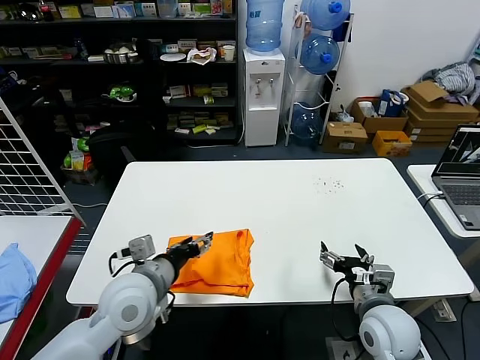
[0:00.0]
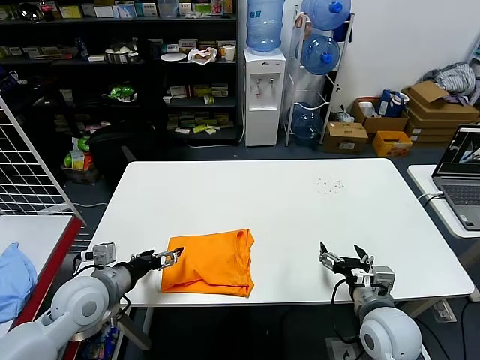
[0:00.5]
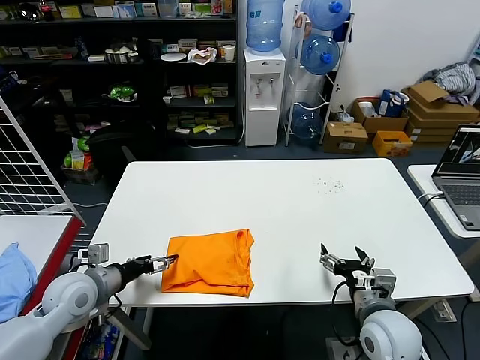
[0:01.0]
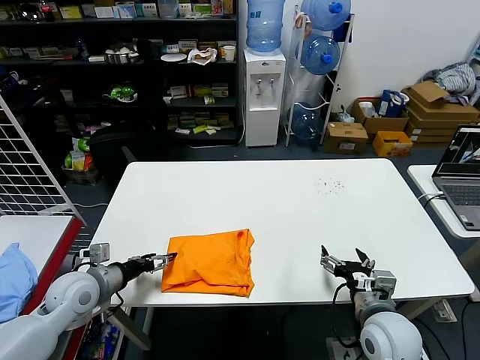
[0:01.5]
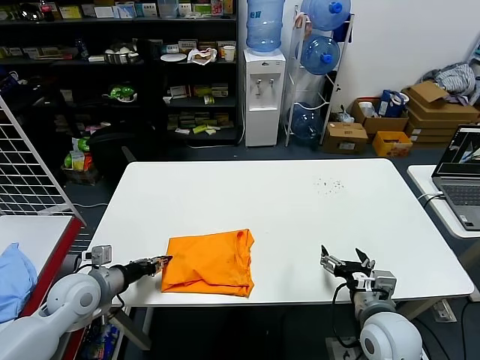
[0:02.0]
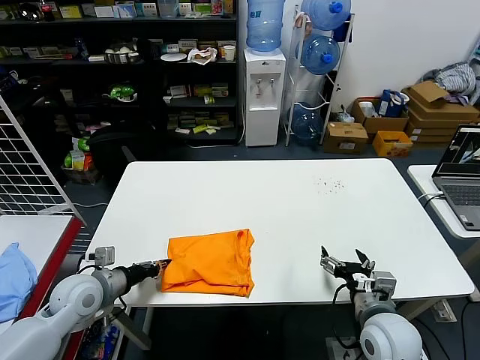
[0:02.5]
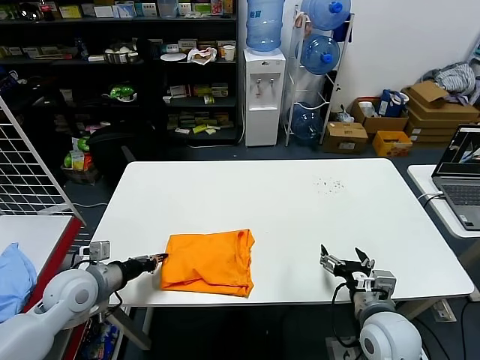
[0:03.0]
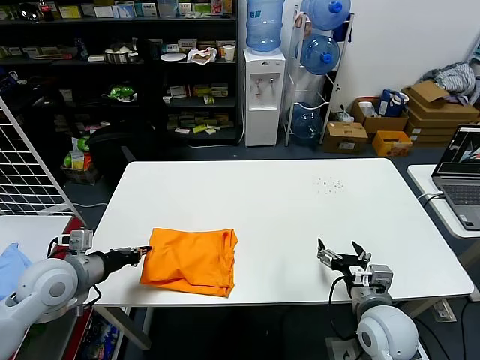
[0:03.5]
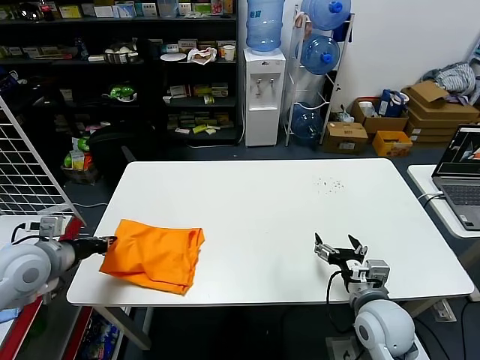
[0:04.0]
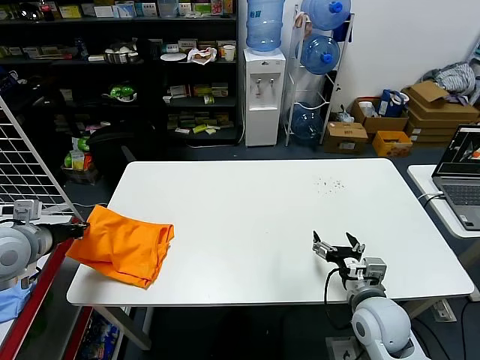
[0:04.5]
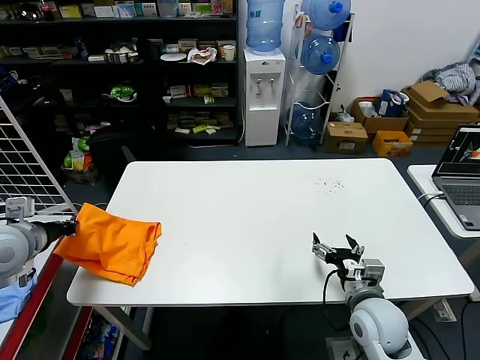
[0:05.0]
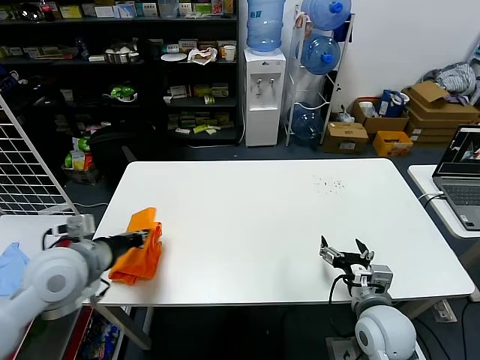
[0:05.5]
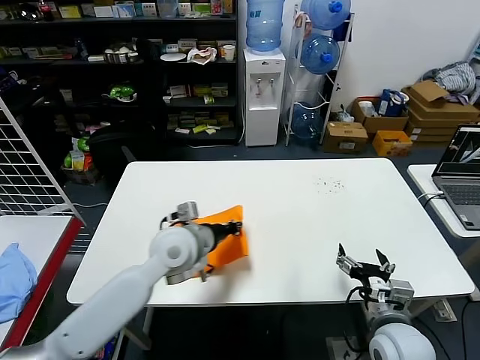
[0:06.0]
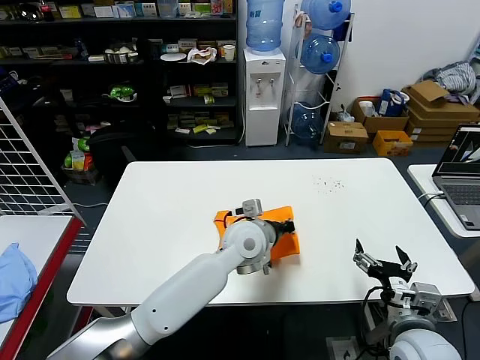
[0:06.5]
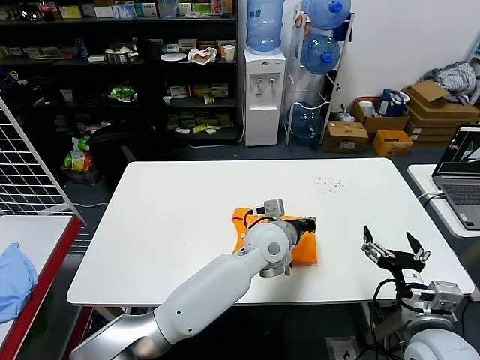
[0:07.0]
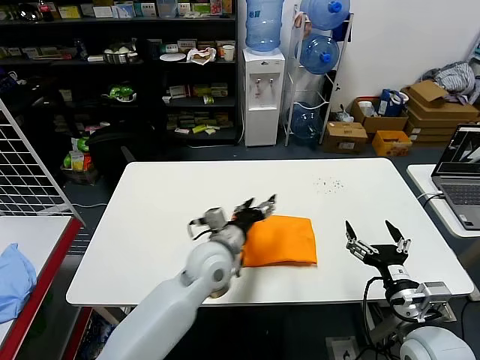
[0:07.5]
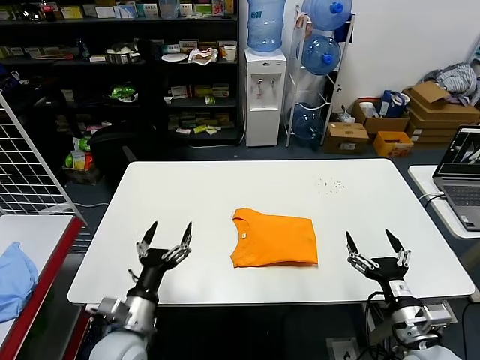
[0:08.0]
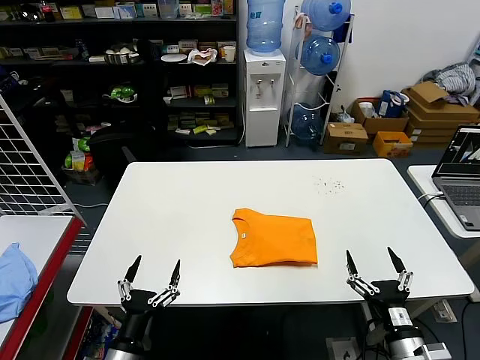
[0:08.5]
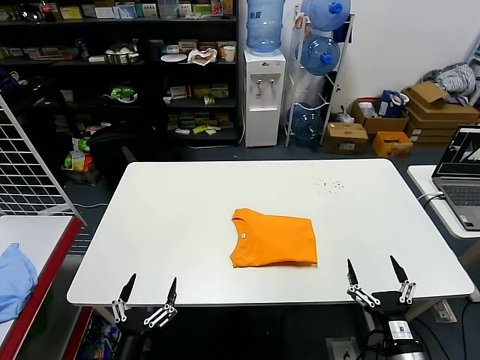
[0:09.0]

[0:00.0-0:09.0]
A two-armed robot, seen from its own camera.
Task of the whole recording: fold and organize the clothes.
Step, 0:00.0 to 0:06.5: Flip the folded clothes over with left gripper.
0:00.0 to 0:02.0: The left gripper travels to the left and downward by roughly 20 cm, and opens and closes again.
0:02.0 to 0:04.5: The left gripper shifts about 15 cm upward and to the left, and closes up.
0:04.5 to 0:07.0: The right gripper moves backward and upward, approximately 10 cm; the left gripper travels to the right by roughly 50 cm.
0:07.0 to 0:09.0: The right gripper moves downward and backward, some 10 cm; the left gripper shifts some 40 cm backward and to the left, and opens up.
